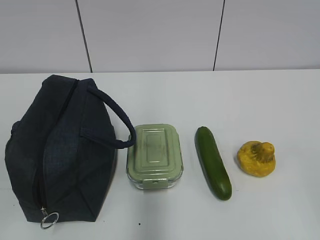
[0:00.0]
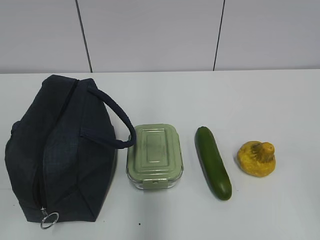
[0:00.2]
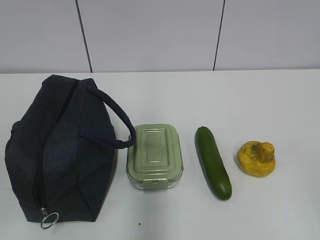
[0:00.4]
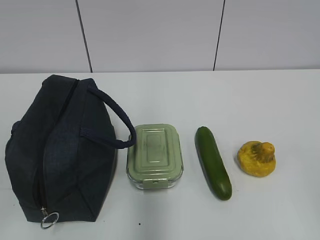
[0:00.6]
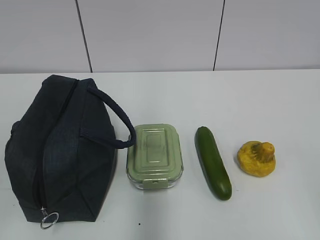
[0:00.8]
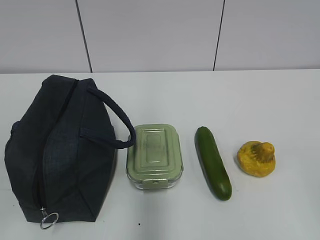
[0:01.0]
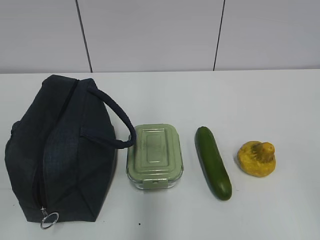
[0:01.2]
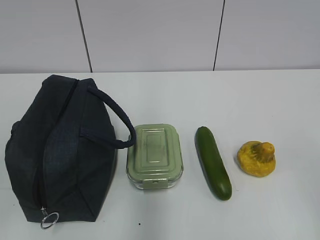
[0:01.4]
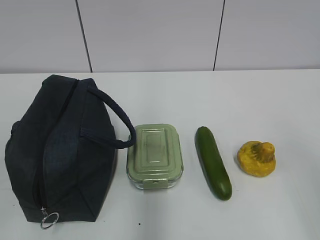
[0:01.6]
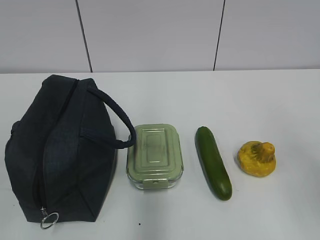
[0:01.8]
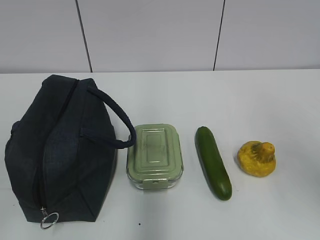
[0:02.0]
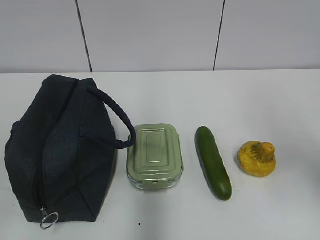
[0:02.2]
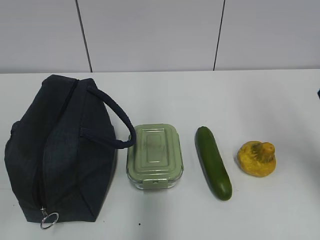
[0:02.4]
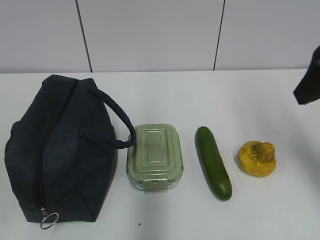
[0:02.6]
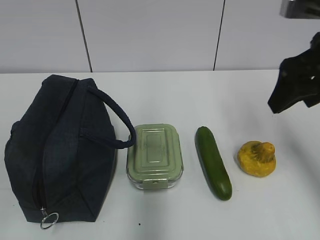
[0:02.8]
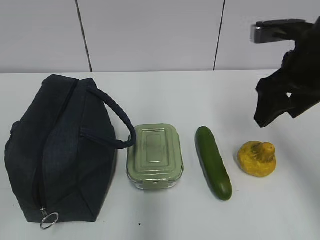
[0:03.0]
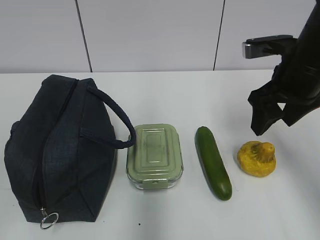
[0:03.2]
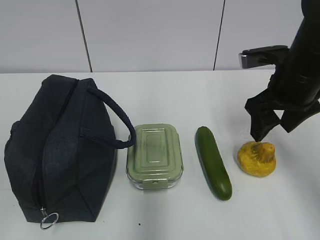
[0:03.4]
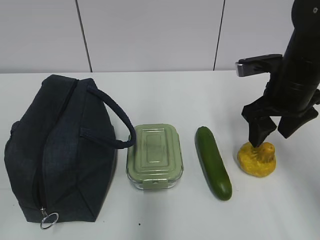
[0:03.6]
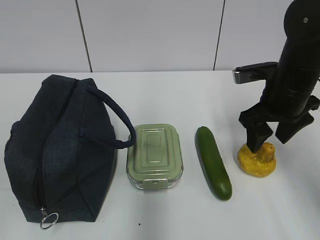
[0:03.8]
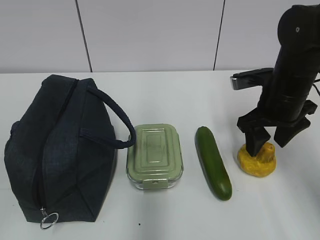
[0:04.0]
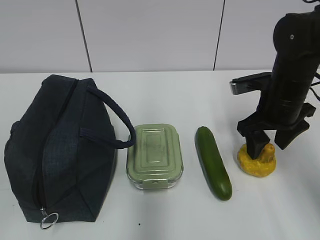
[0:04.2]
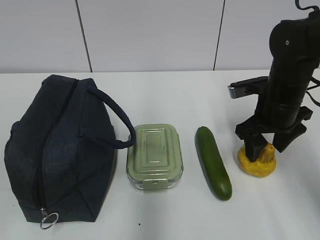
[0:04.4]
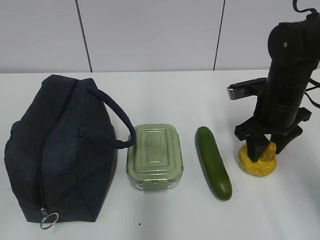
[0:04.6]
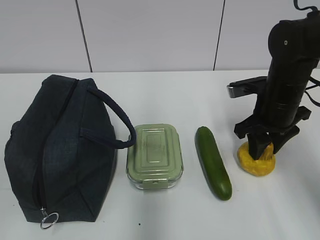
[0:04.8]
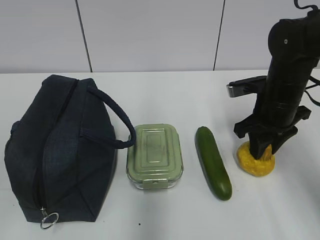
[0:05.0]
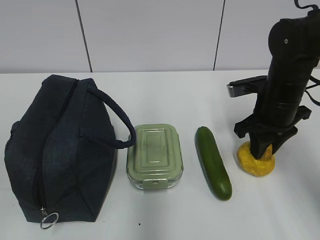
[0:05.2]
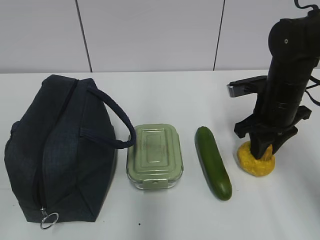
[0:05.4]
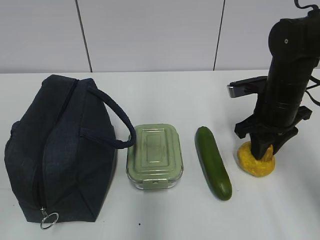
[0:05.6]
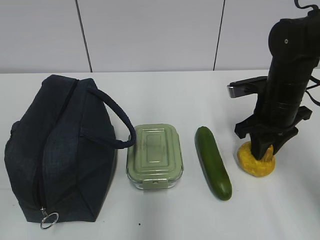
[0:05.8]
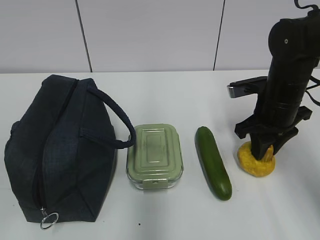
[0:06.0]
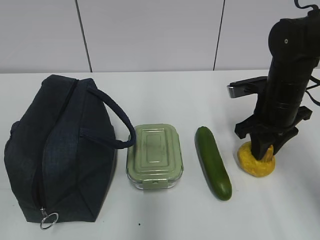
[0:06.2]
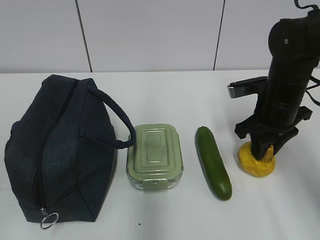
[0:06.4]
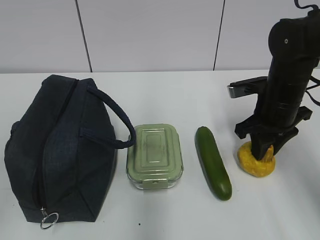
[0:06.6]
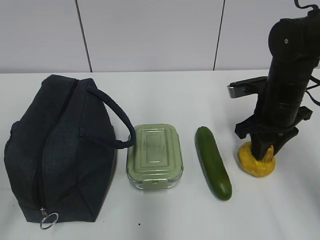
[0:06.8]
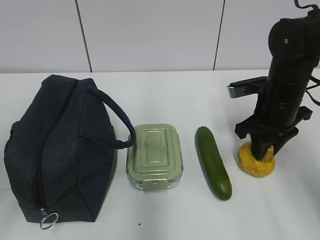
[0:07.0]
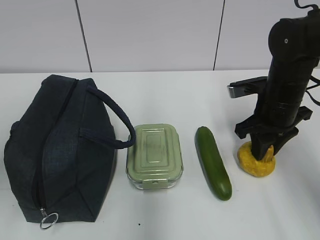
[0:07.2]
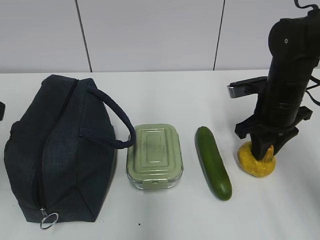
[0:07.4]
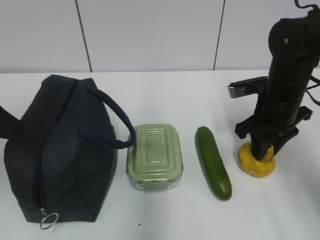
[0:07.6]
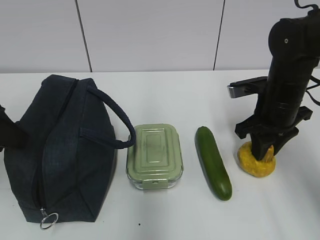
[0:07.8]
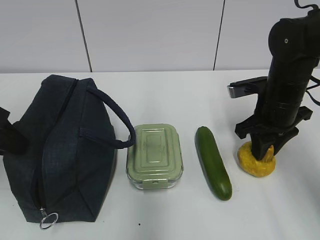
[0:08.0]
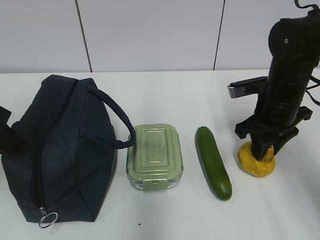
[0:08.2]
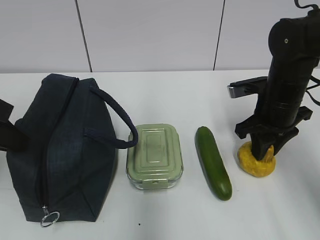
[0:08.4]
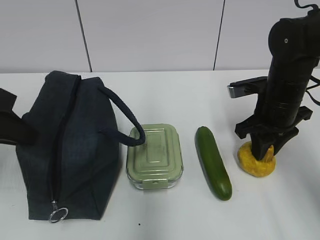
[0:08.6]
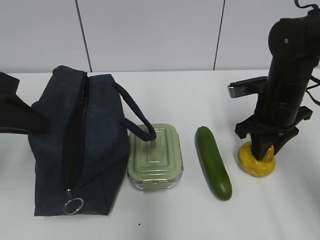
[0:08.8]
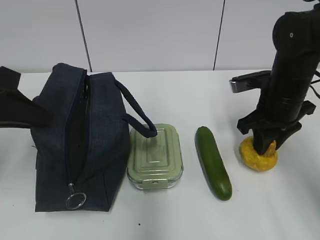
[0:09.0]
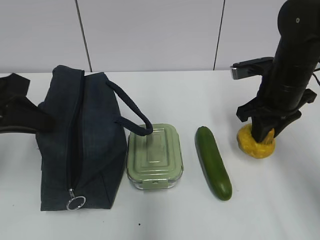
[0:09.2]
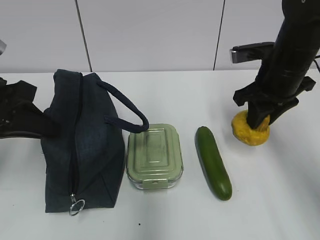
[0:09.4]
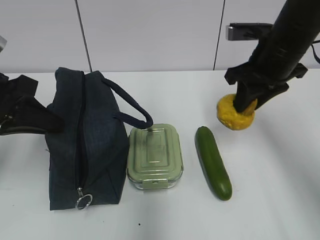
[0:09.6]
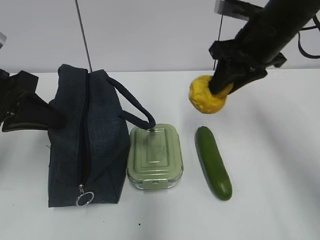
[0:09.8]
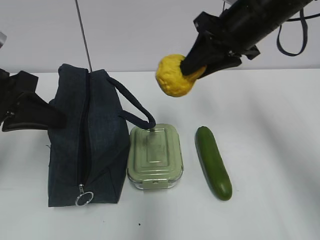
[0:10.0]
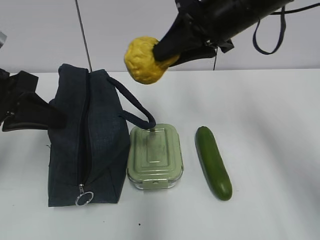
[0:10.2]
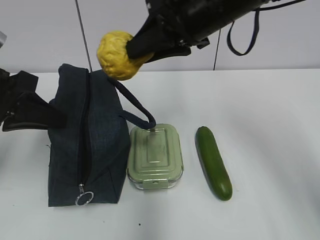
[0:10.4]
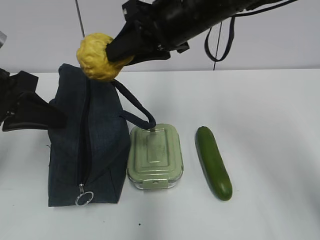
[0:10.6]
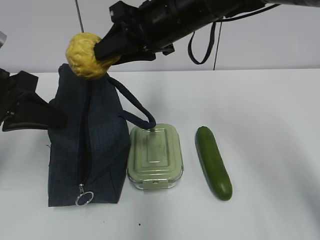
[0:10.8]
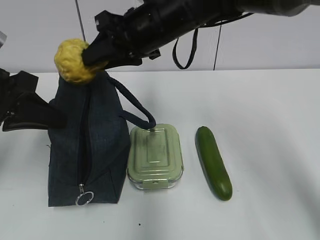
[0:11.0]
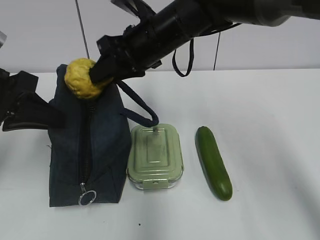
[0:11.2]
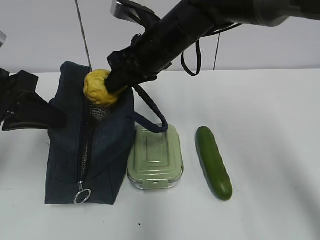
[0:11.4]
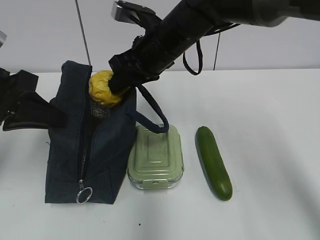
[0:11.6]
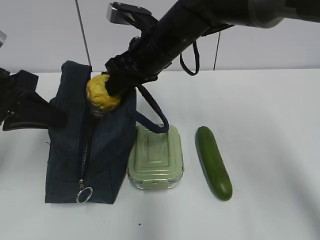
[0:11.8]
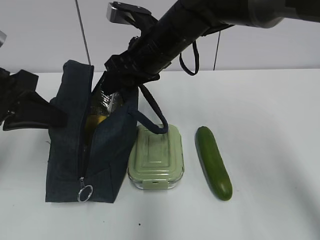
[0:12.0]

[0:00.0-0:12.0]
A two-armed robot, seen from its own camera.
Step, 0:00.0 to 0:06.2: Grab the pear with your right hand.
Step, 0:06.4 to 0:11.4: Grab the lunch bag with your left hand.
0:01.6 to 0:03.0: The right gripper moves forward, some 25 cm.
0:03.0 to 0:04.4: The right gripper goes about 10 cm downward.
0:04.4 to 0:06.0: The right gripper closes up.
0:06.0 to 0:07.6: The left gripper moves forward, approximately 20 cm.
0:07.6 to 0:09.0: The left gripper closes.
0:09.0 to 0:10.4: The right gripper goes some 20 cm upward and to the left.
0:10.4 to 0:12.0: The right gripper is displaced downward, to the left and forward by some 10 cm, and opens.

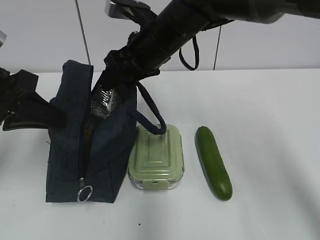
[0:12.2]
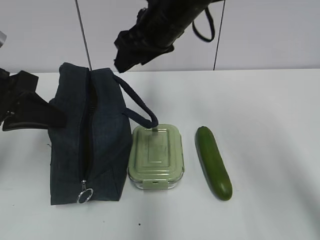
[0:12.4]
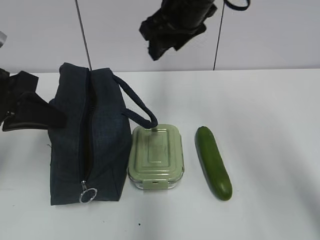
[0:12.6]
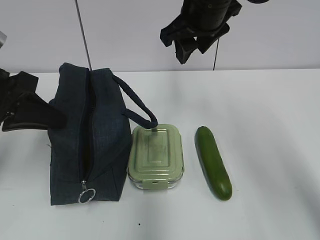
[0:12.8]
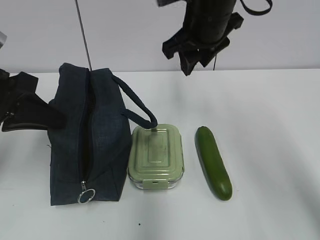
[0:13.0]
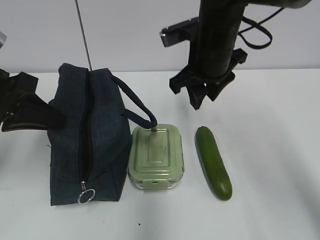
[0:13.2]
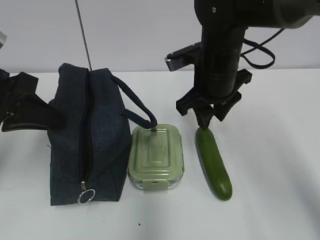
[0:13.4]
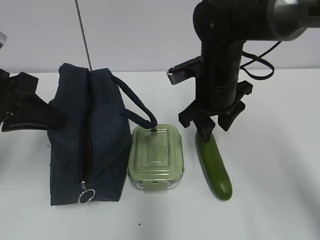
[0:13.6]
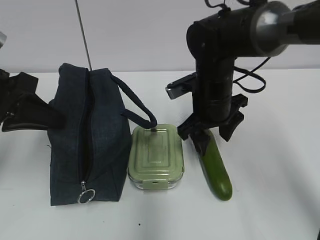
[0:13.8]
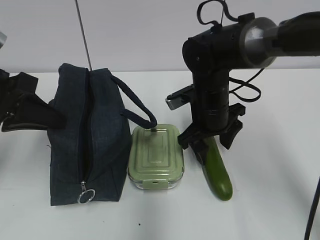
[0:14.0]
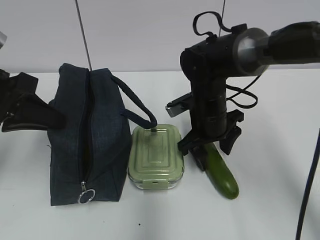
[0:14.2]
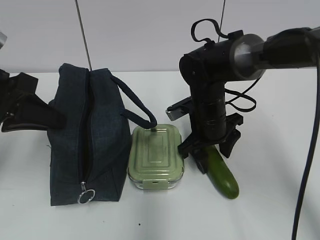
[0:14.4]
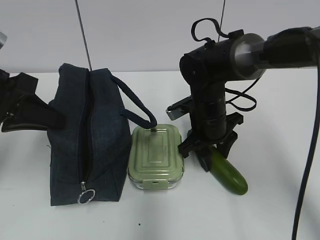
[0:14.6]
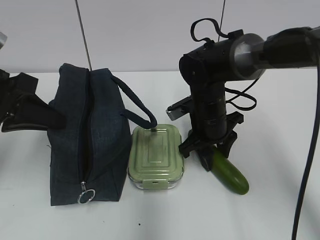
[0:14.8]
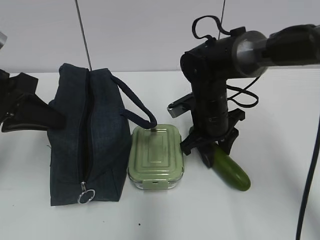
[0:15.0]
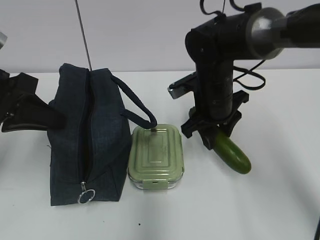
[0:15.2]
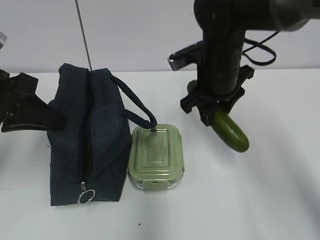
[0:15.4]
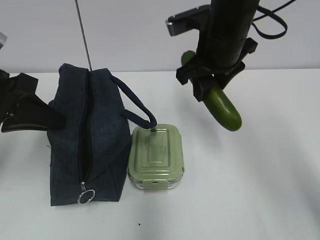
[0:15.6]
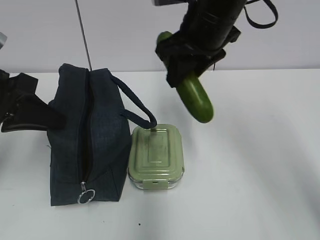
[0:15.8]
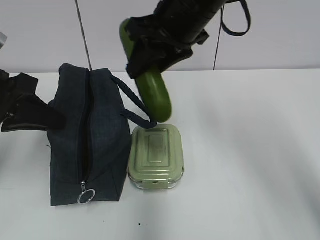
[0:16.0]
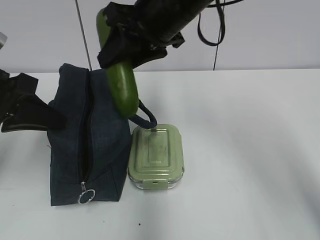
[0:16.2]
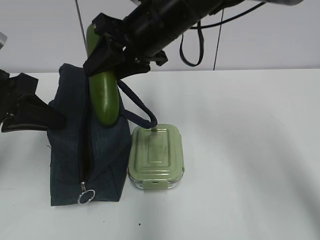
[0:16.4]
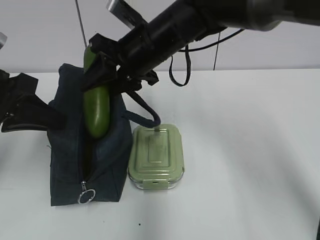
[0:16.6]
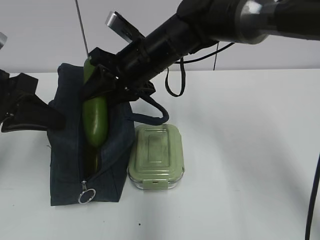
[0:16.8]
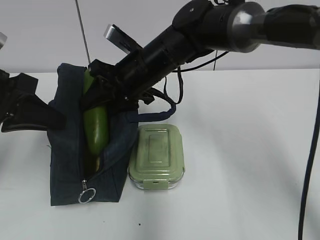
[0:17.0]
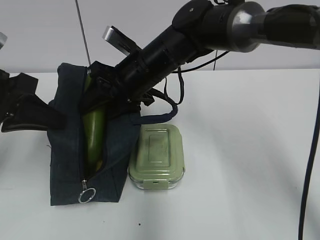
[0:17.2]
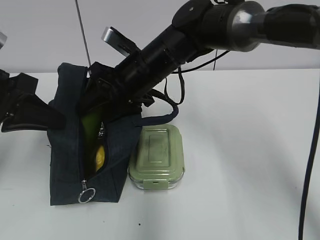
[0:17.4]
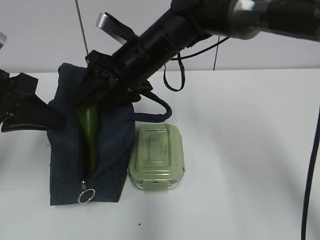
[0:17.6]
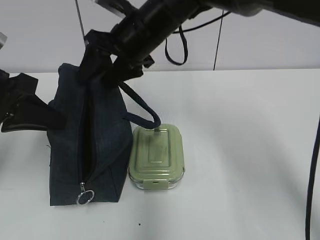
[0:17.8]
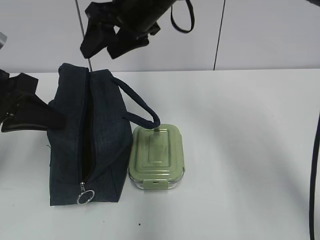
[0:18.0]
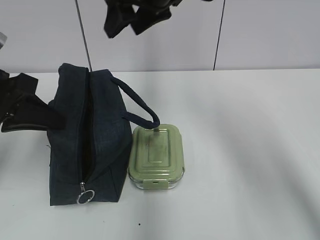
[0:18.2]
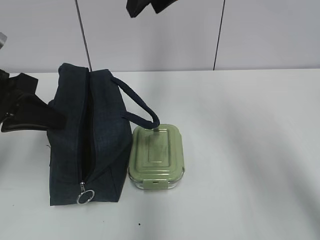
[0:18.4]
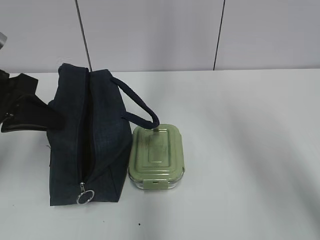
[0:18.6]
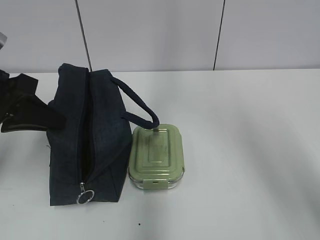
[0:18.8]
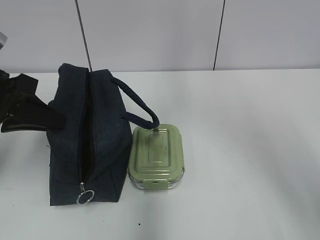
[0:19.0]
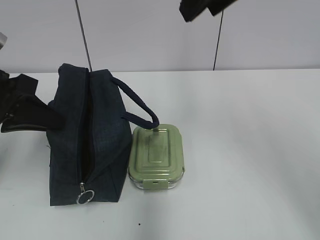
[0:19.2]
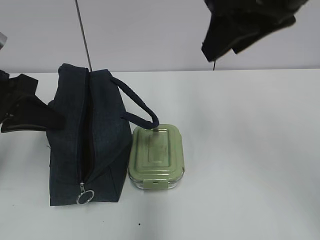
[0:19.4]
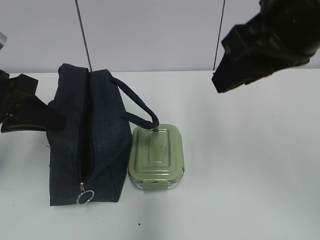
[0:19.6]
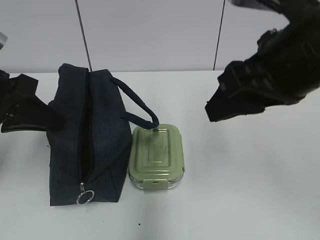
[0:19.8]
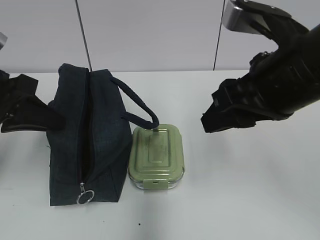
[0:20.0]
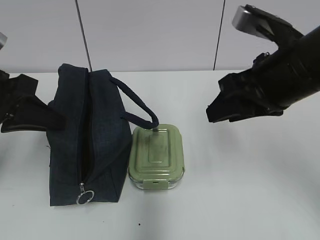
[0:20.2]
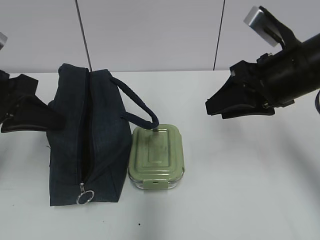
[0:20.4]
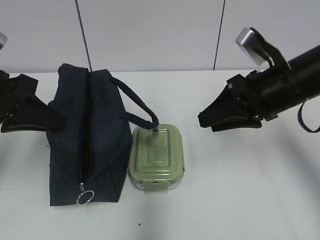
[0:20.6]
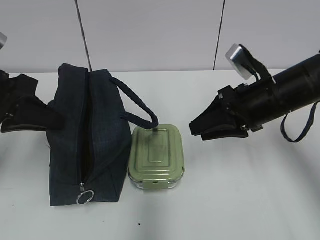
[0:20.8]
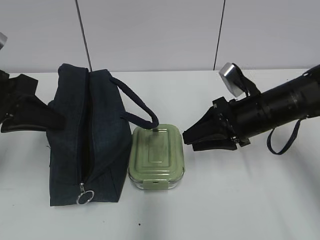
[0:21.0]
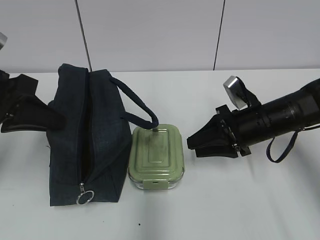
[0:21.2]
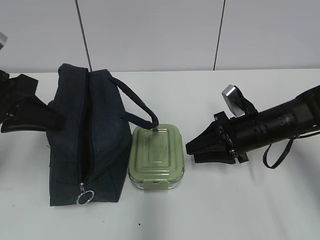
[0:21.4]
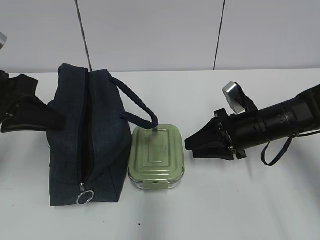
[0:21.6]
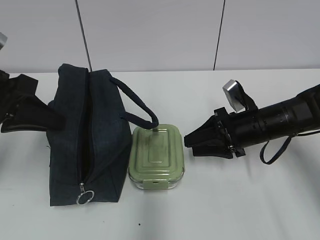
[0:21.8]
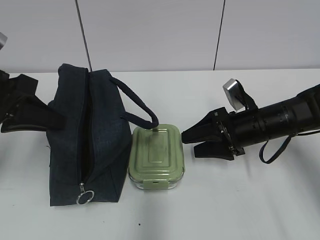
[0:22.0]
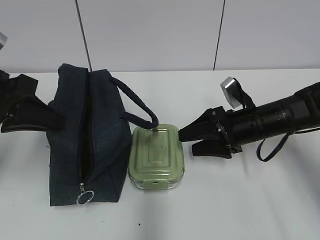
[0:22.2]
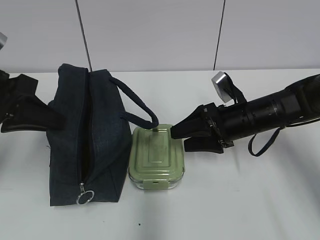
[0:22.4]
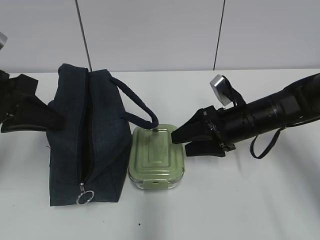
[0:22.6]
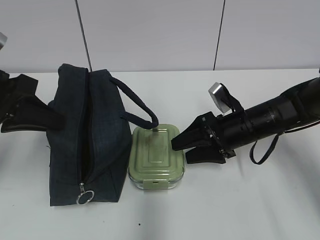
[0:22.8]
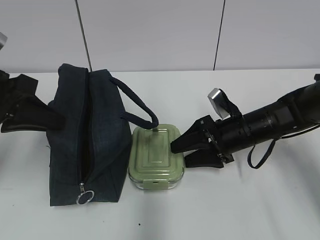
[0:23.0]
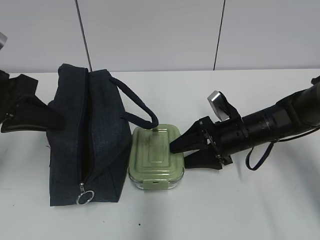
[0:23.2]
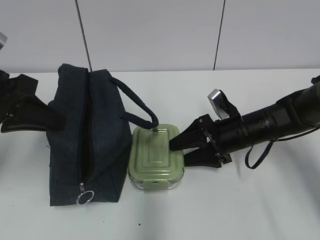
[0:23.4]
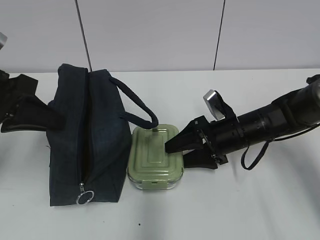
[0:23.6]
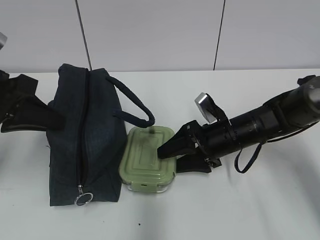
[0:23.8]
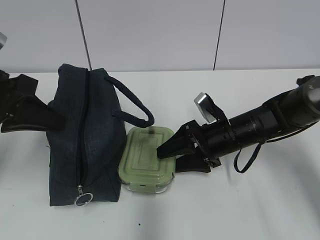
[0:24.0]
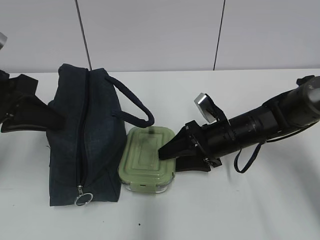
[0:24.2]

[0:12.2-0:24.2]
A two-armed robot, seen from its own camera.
Step, 0:12.8 to 0:14.8: Grab the cucumber with your right hand.
Step, 0:15.0 to 0:17.8: Place it into the bag with your right hand.
0:12.2 to 0:13.8: The right gripper goes approximately 10 cm downward and to the right.
0:13.8 to 0:15.2: The grippers move only a little.
0:15.2 to 0:16.6: The right gripper shifts about 10 cm to the left and upward.
0:16.6 to 0:18.2: The right gripper moves upward, roughly 10 cm.
0:18.2 to 0:19.8: The right gripper is displaced backward and to the right by roughly 20 cm.
0:19.8 to 0:21.2: The right gripper travels downward and forward by some 25 cm.
0:21.2 to 0:22.6: The right gripper opens its fingers.
0:22.6 to 0:24.2: The grippers make only small movements.
